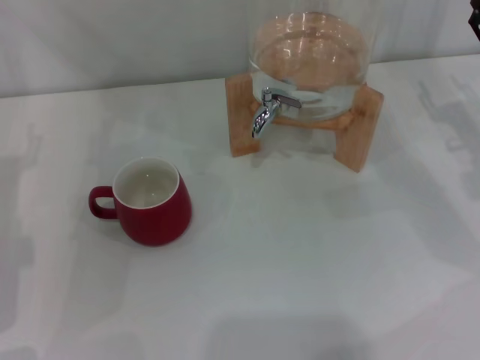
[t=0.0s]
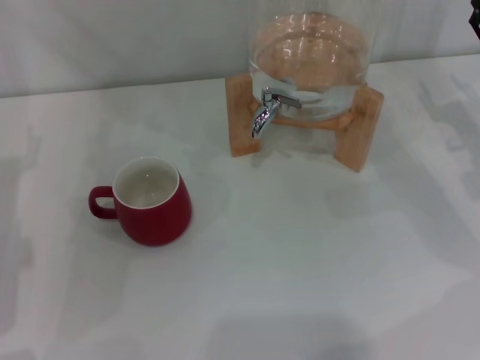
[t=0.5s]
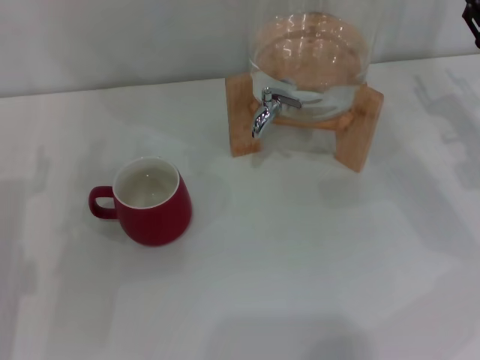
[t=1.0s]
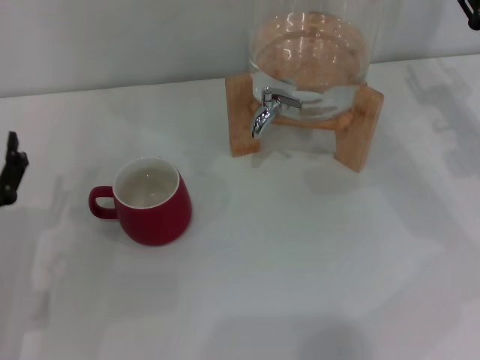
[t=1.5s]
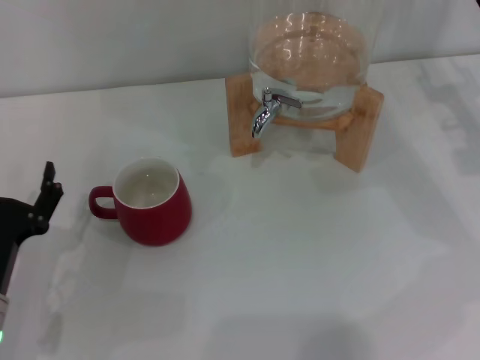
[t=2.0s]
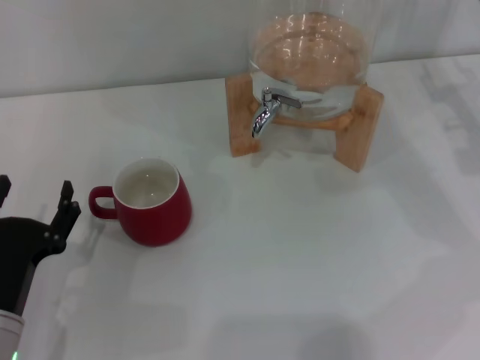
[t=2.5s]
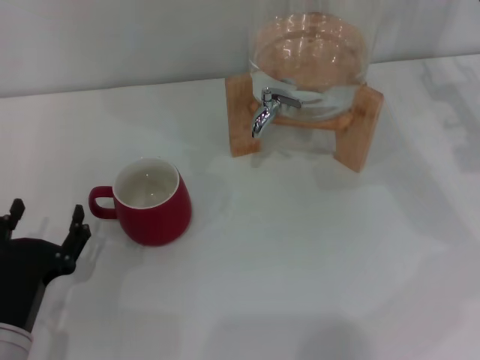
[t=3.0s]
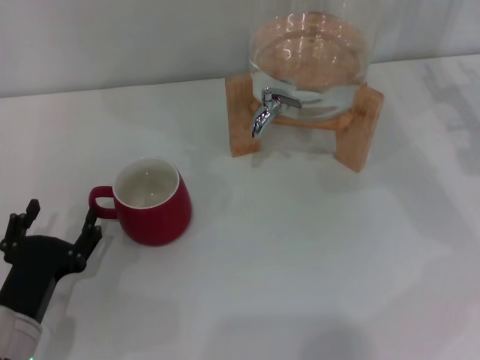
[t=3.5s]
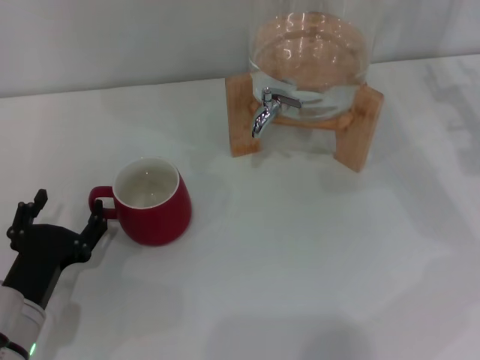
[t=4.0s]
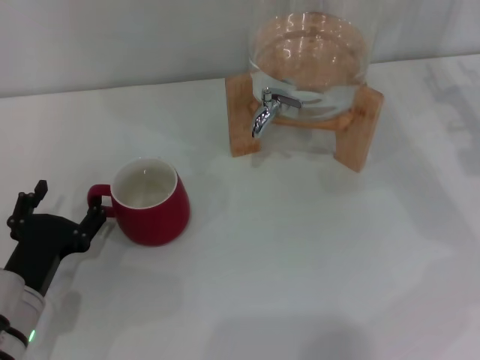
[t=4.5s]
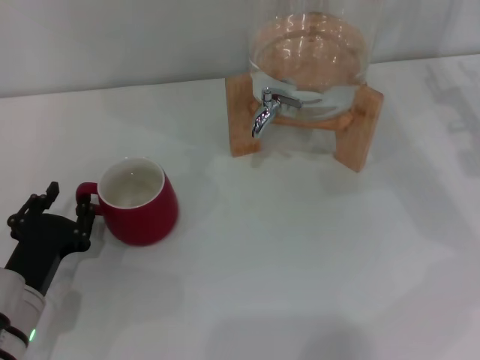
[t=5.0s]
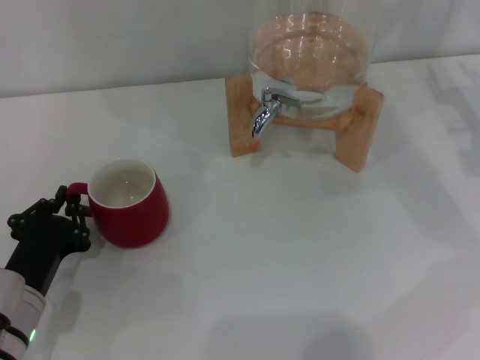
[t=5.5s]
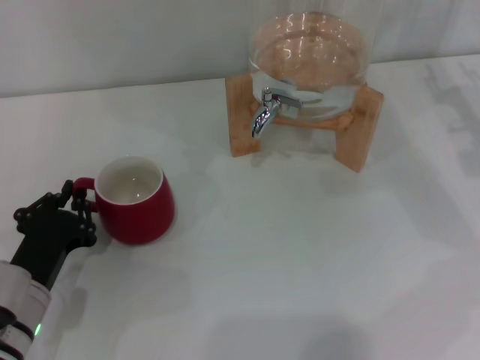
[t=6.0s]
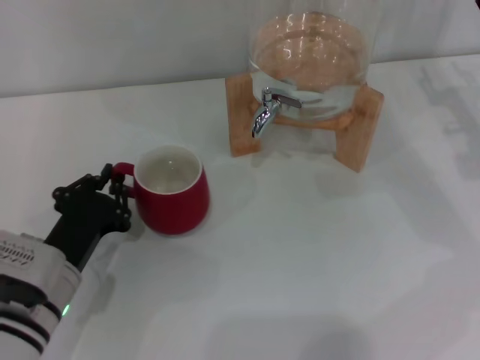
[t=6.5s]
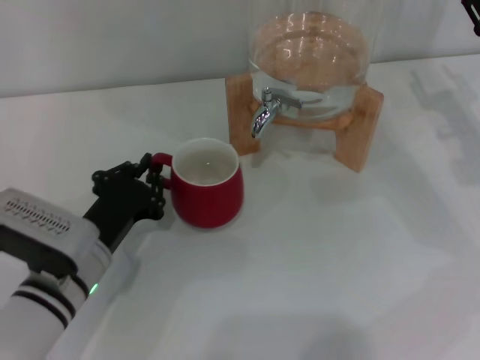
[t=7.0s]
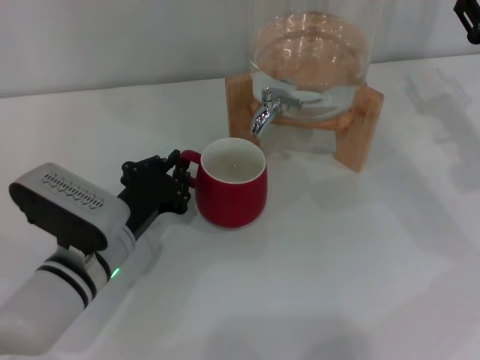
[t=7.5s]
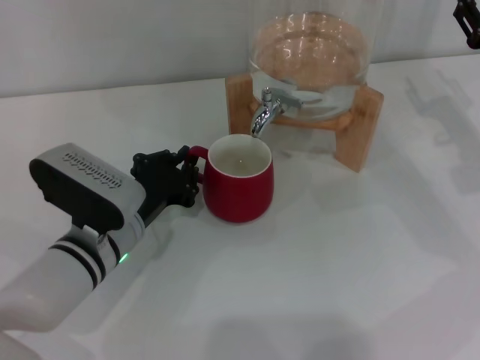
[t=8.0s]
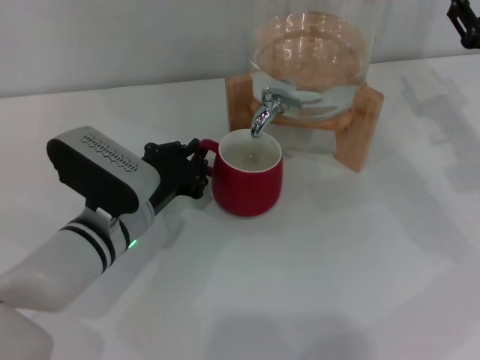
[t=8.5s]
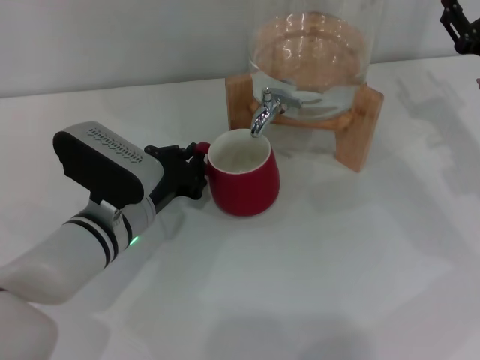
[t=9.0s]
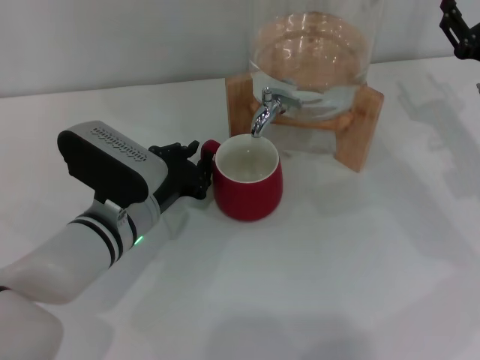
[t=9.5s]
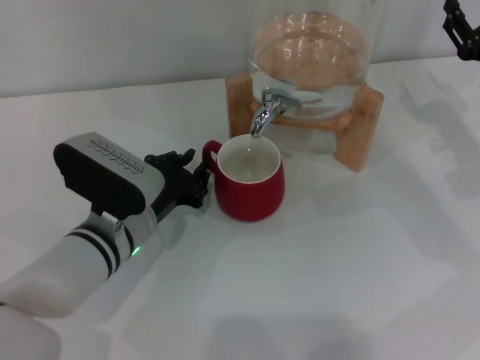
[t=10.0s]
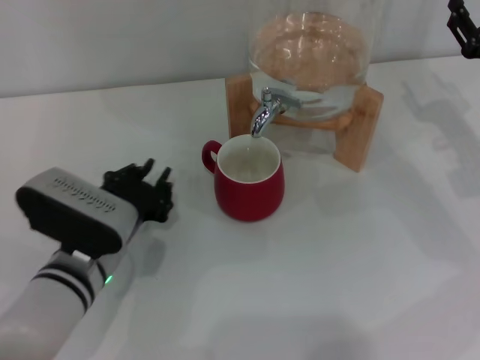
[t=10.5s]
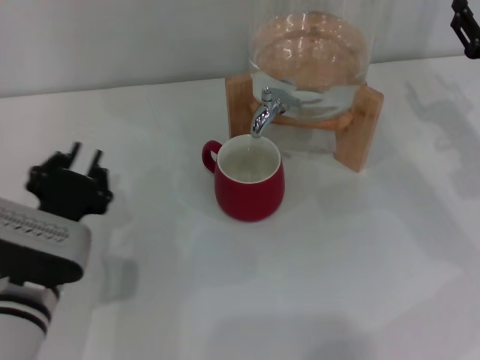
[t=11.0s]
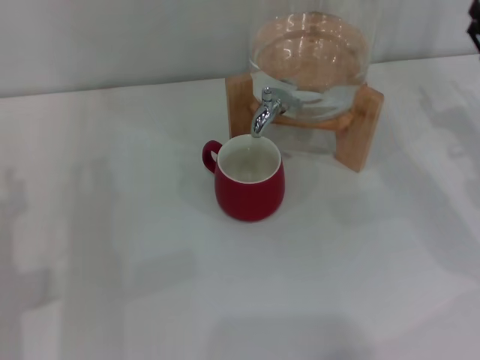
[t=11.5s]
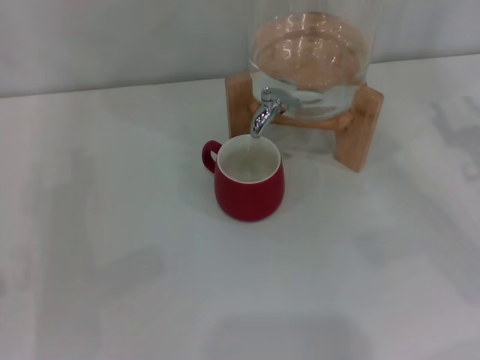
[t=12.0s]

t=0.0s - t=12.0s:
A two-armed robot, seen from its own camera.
Task of the whole recording: the left gripper pick up the red cup and place it horizontally under the faucet, the right gripper turn on the faucet to fill the cup, and then turn off the faucet.
Step, t=0.0s - t=8.5s: Move the cup beneath the water dispenser nozzle with the left gripper.
t=0.0s - t=2.0s: The left gripper shifts roughly 10 cm backward and downward.
t=2.0s - t=4.0s: The grippers stay close to where they were, moving slightly.
t=4.0s - t=6.0s: The left gripper closes.
t=6.0s - t=8.0s: The left gripper travels to the right and forward by approximately 10 cm.
t=8.0s - t=10.0s: The grippers stay close to where they were, moving slightly.
t=10.0s - t=12.0s: The right gripper is displaced backward by some 5 cm. The left gripper is displaced to the left by roughly 15 cm, and opens.

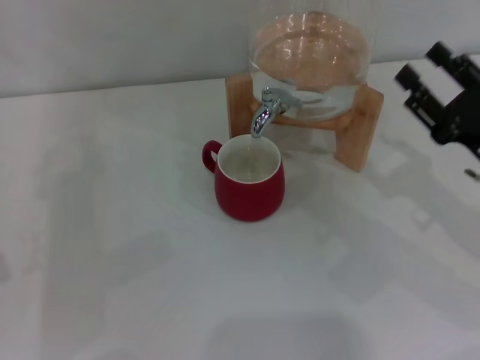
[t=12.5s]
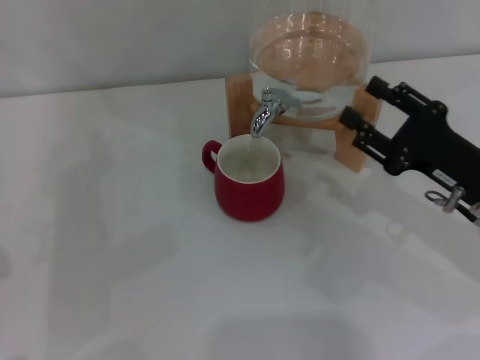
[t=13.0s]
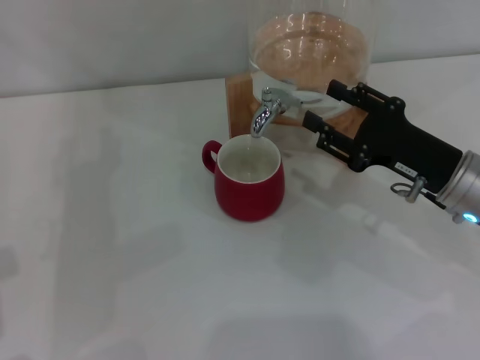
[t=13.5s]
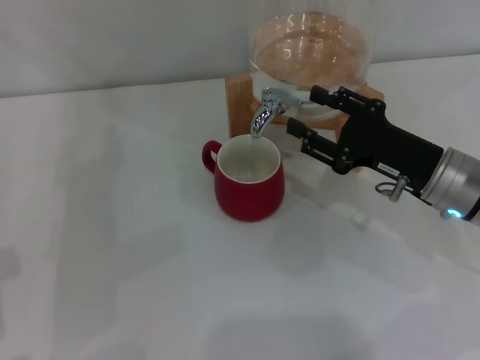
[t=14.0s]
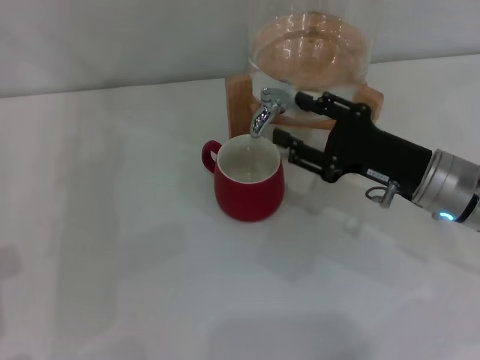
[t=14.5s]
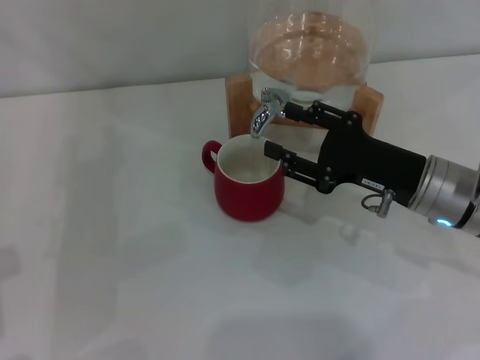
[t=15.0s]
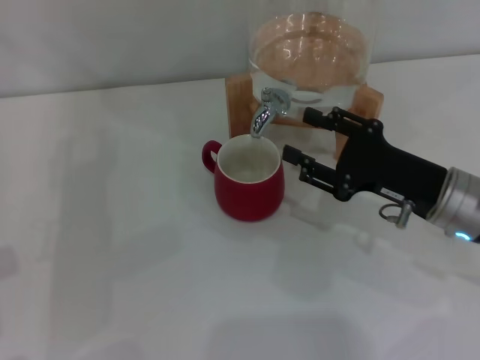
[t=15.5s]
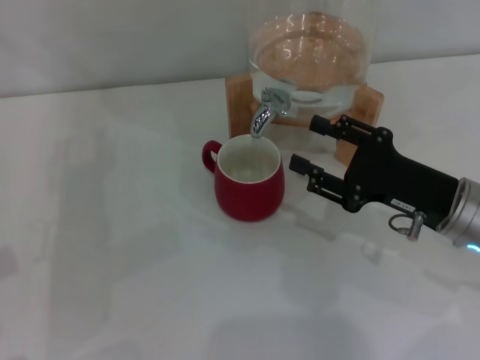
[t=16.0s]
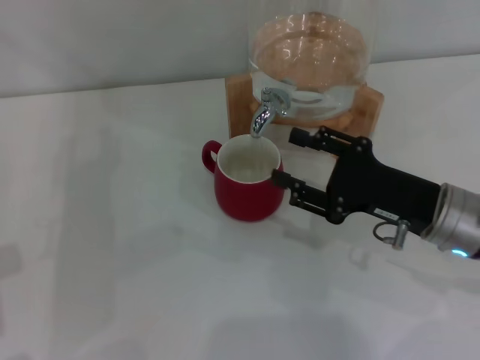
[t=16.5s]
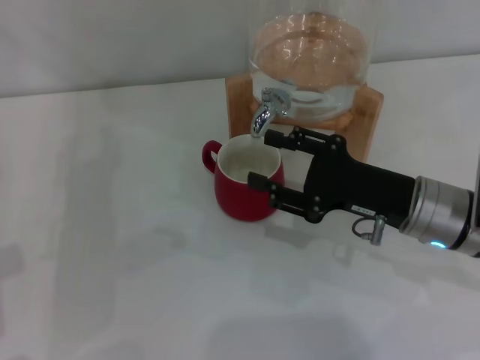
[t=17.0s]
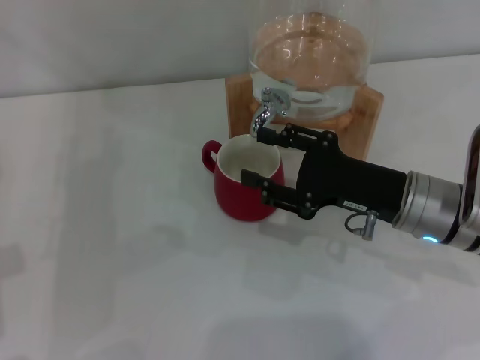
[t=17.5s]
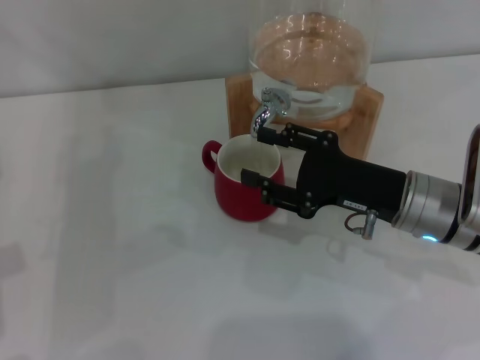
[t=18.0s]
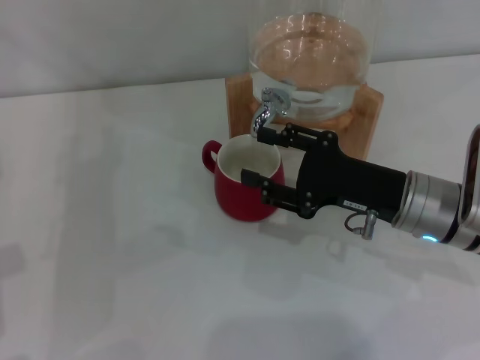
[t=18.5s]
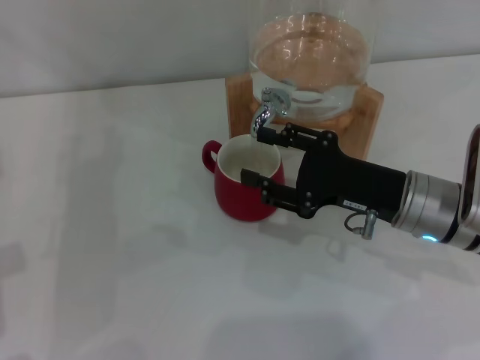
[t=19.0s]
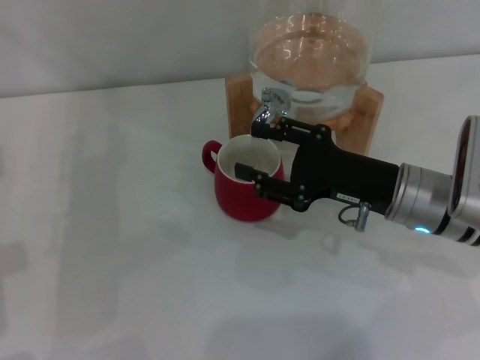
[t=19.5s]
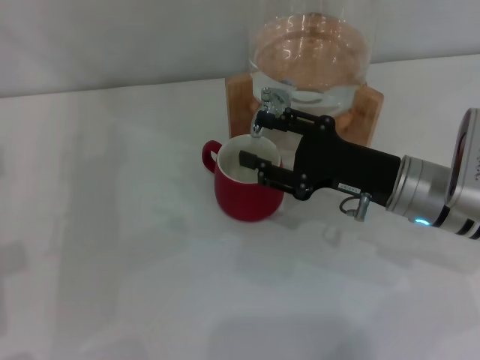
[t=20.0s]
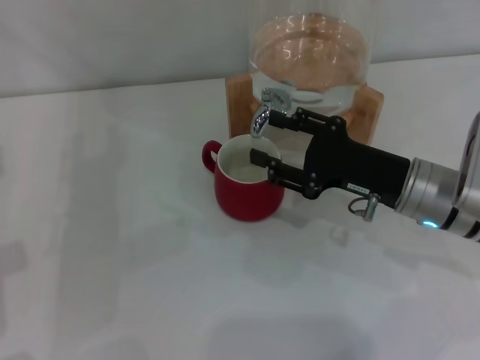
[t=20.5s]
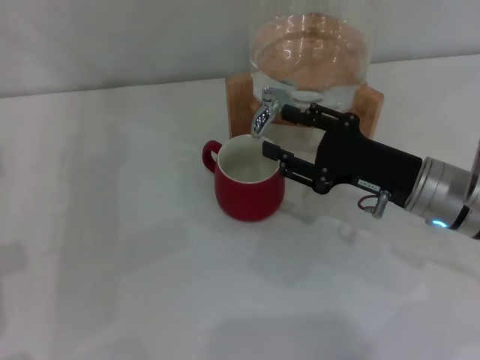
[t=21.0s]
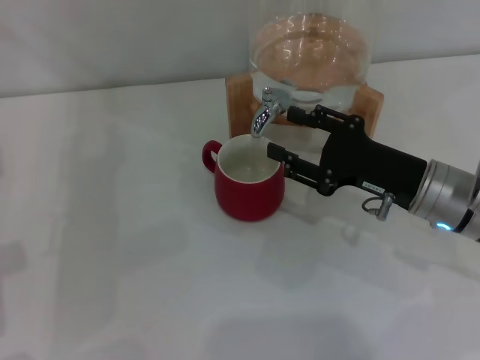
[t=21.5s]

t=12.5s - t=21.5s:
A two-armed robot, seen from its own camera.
Task of the whole recording: the left gripper pick up the red cup and place it horizontally under the faucet, the right gripper turn on the faucet to fill the cup, and then turn off the faucet.
Step, t=12.5s - t=15.5s: Open the dispenser valve and fill the cup with water with the right gripper.
t=12.5s - t=14.5s: The right gripper travels to the left by approximately 5 cm.
t=14.5s - t=21.5s: There are only small adjustments of the grippers.

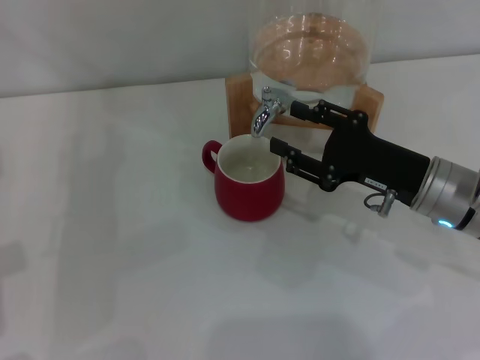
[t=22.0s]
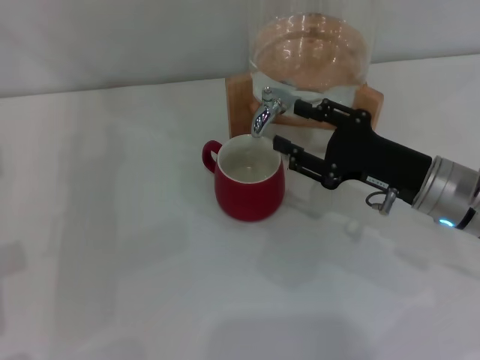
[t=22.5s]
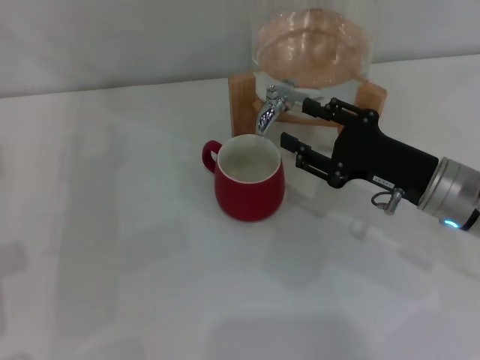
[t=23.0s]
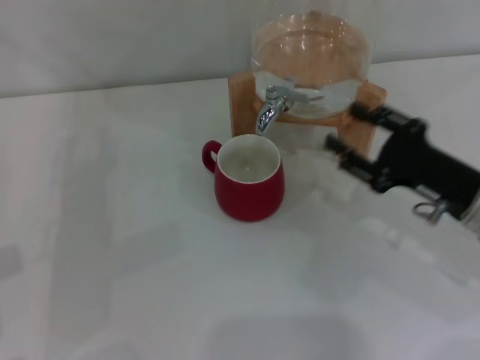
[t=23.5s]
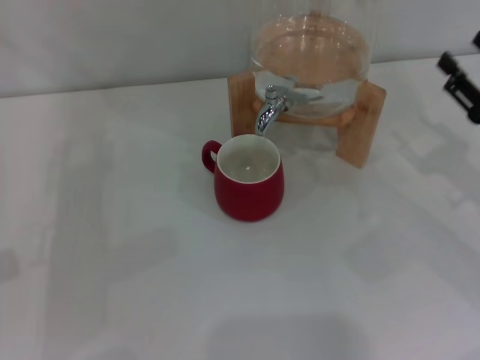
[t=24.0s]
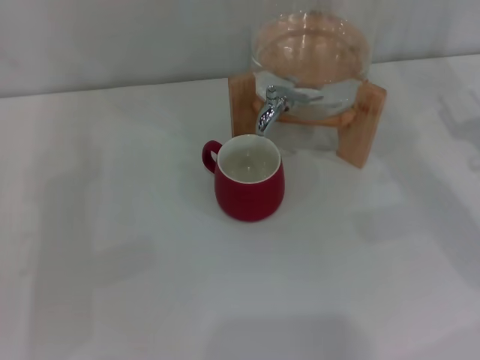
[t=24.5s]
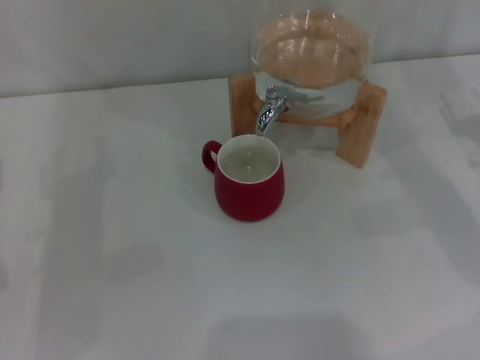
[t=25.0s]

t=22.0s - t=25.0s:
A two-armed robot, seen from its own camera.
Task of the whole recording: the left gripper pick up the red cup and place it horizontally under the faucet, the right gripper turn on the faucet to fill the cup, and then turn off the faucet.
t=22.0s - t=23.5s: The right gripper ends up roughly 5 cm from where it was.
t=23.5s - t=25.0s: The right gripper moves to the right, approximately 10 cm.
